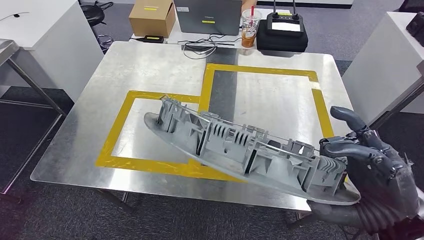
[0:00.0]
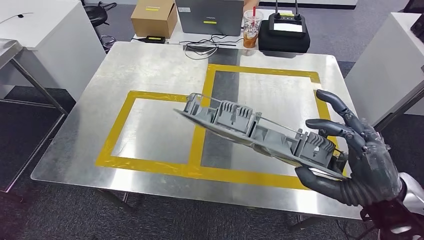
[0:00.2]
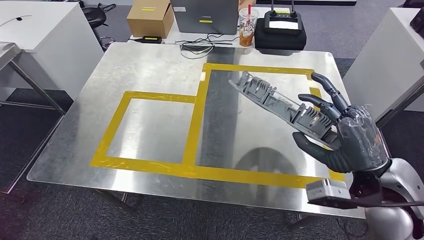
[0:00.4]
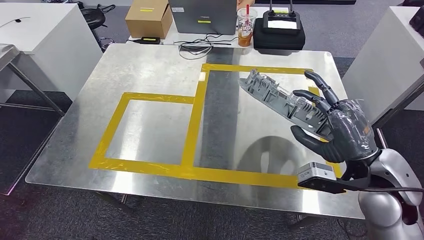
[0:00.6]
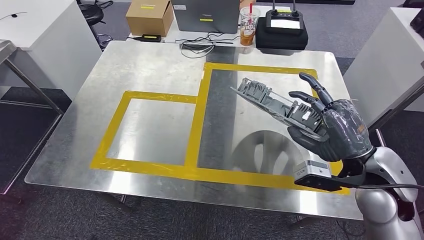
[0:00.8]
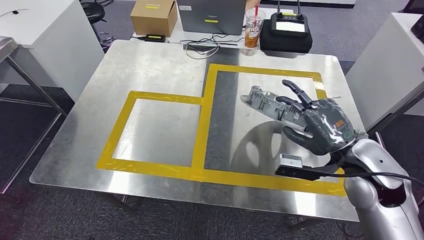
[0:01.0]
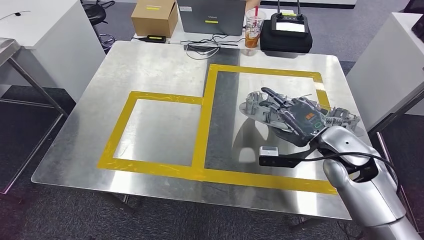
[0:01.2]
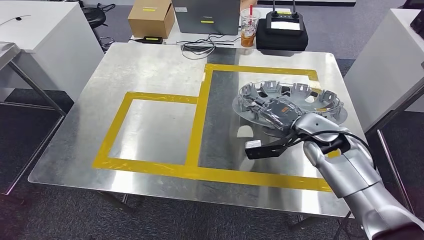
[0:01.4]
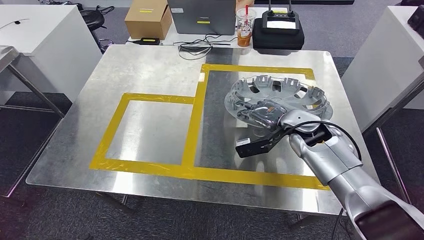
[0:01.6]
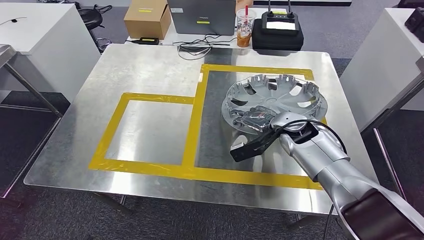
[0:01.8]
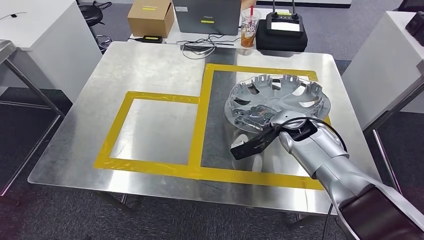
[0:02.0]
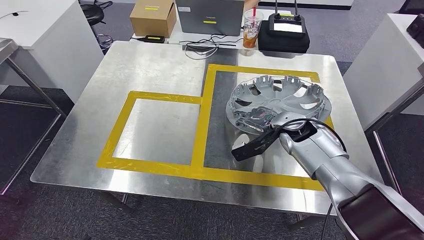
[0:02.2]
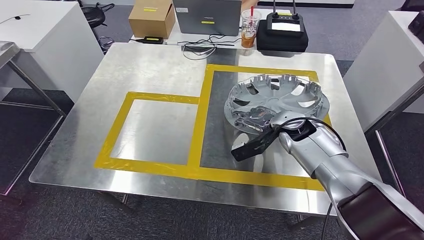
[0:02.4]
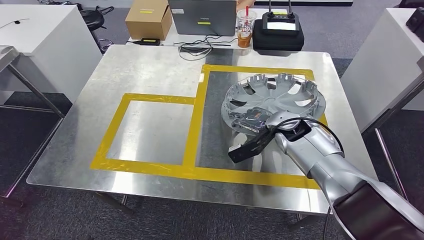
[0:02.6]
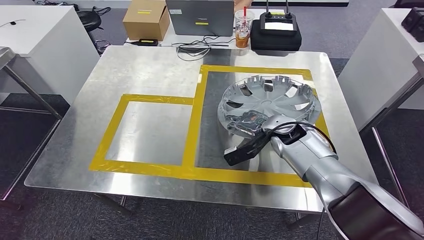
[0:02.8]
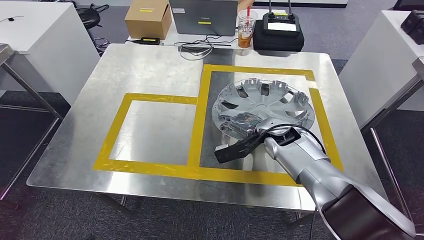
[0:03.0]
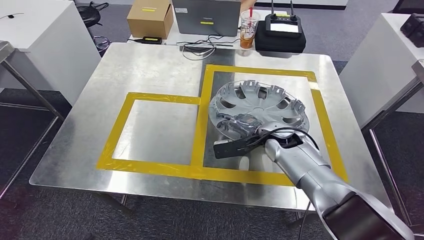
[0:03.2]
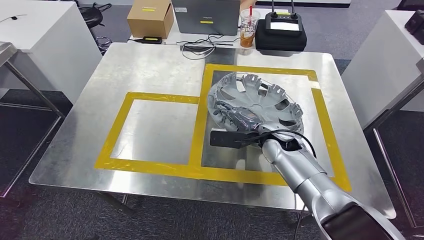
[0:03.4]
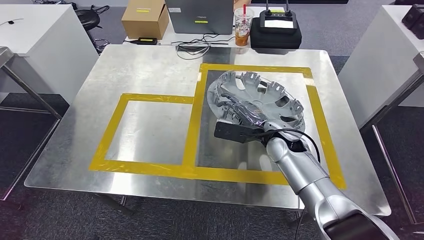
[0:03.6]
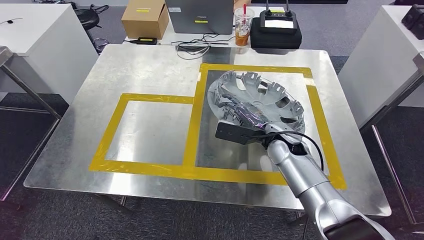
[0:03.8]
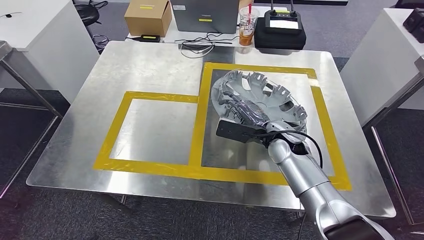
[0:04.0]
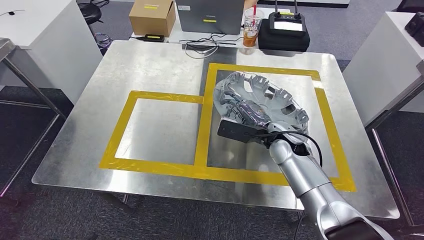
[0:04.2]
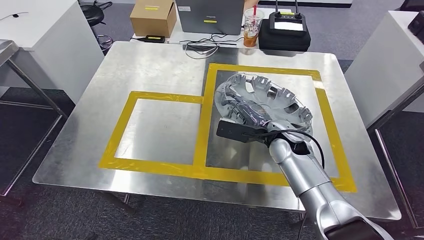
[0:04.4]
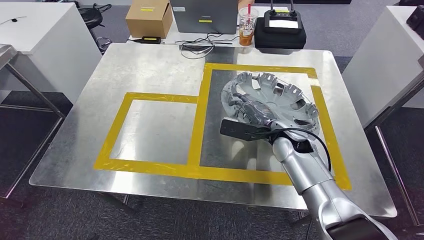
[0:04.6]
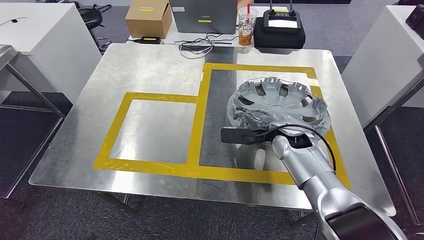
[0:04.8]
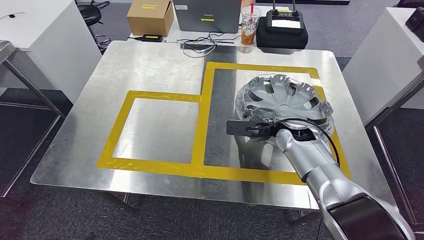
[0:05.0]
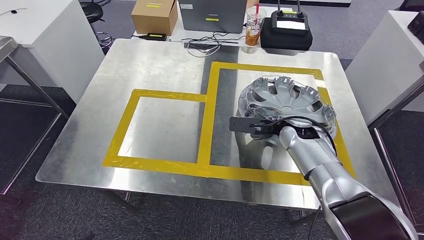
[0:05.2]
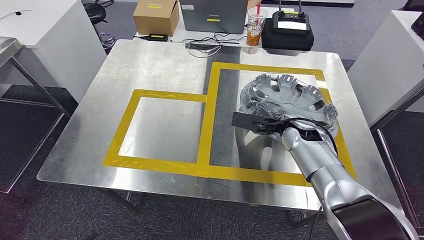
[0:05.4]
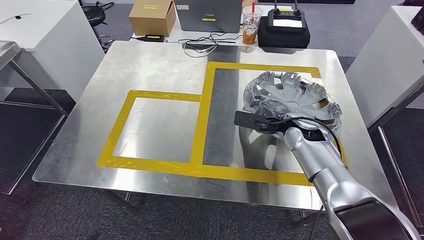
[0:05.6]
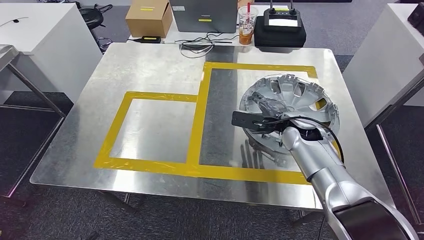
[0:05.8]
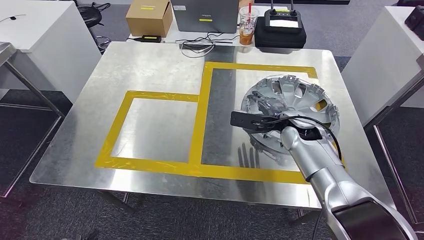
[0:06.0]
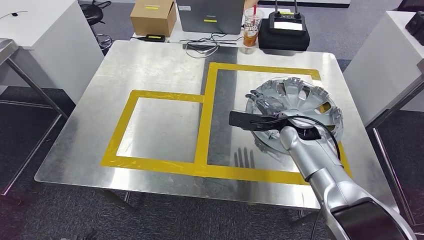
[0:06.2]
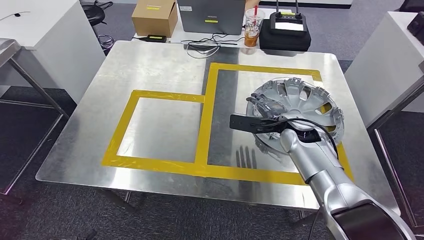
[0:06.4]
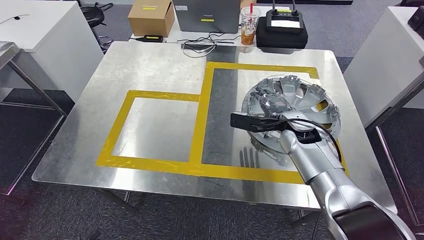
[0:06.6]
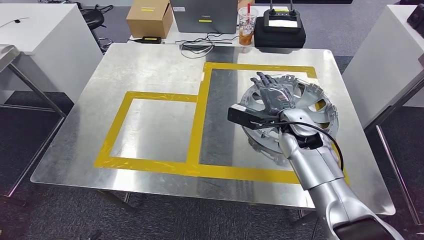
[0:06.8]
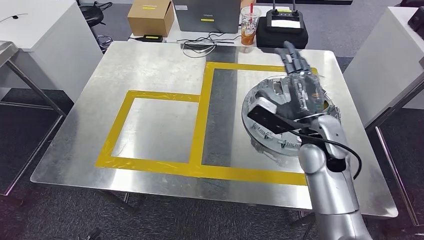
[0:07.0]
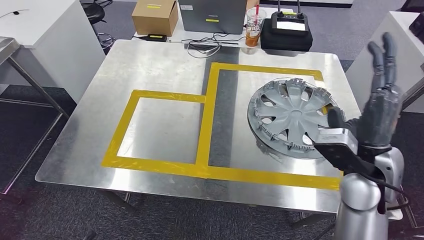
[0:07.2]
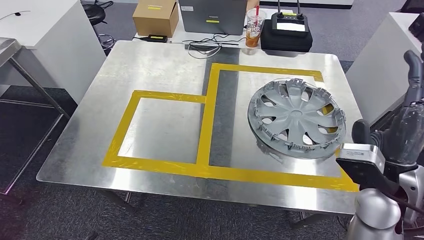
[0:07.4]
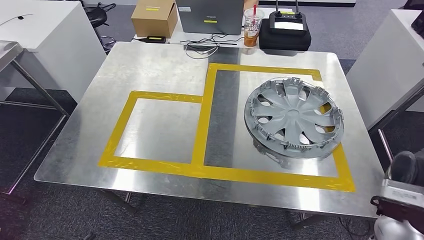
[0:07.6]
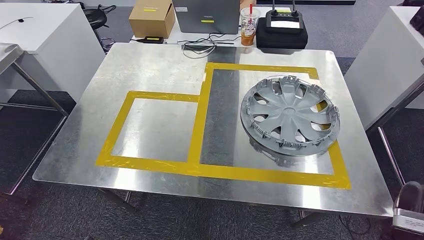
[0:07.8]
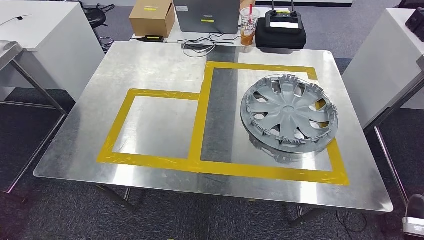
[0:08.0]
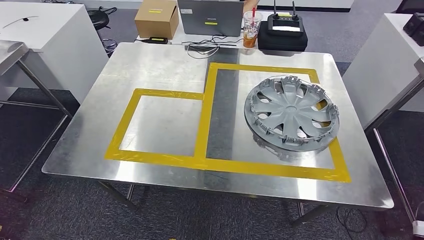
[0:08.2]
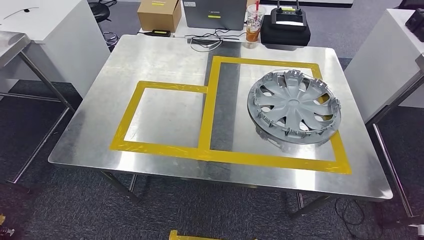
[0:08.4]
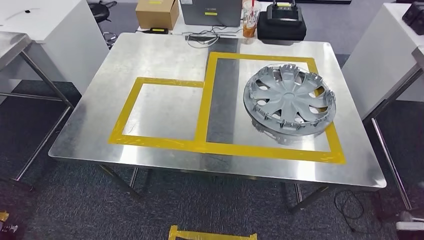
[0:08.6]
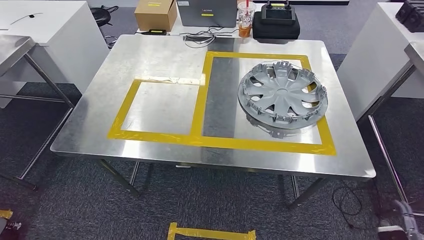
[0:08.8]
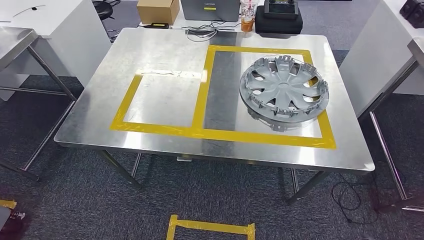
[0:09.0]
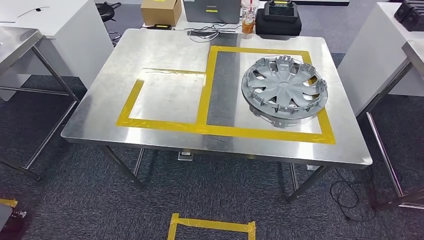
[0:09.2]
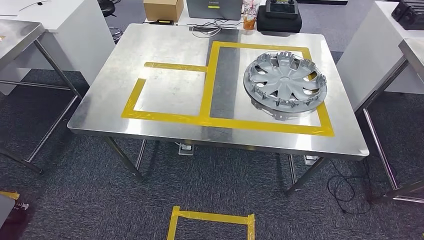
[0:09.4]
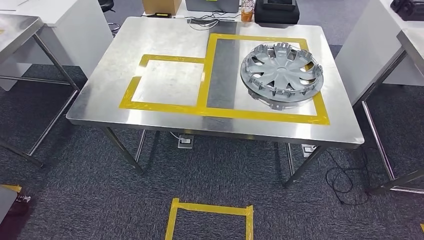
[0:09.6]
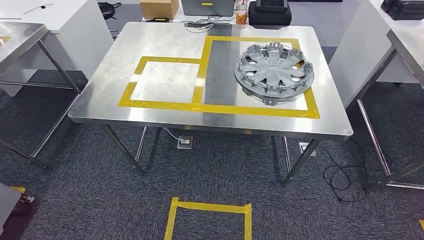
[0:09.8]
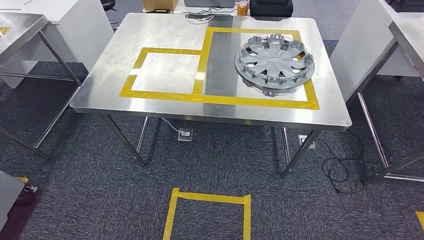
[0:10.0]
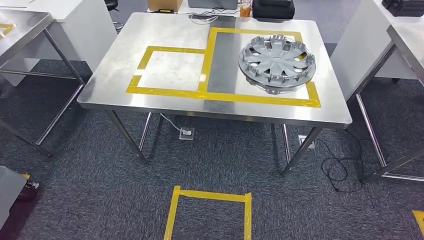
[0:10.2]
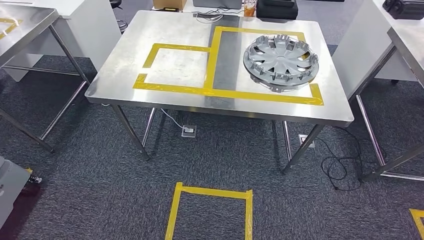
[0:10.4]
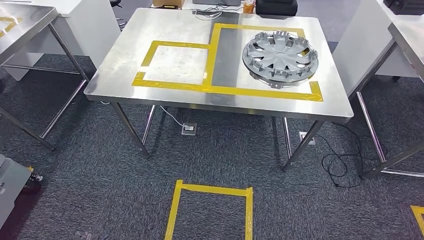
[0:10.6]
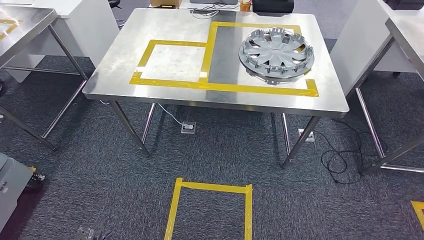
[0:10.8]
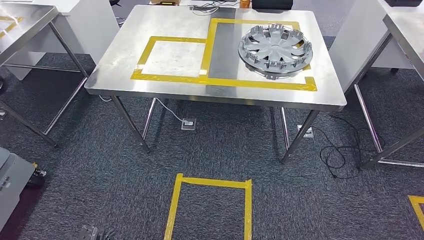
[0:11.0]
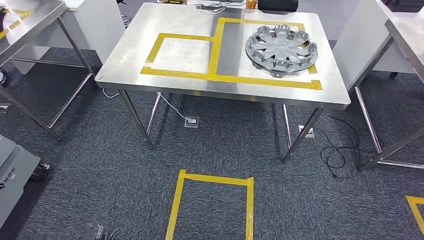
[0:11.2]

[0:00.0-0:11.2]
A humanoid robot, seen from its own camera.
Step, 0:00.0 to 0:02.8: Insert the small component into the corresponding slot on the workbench.

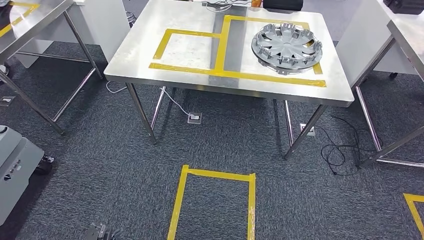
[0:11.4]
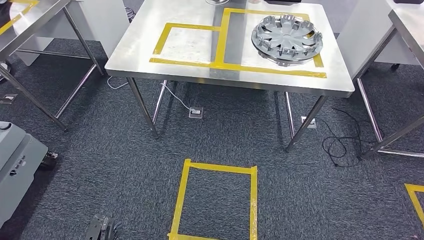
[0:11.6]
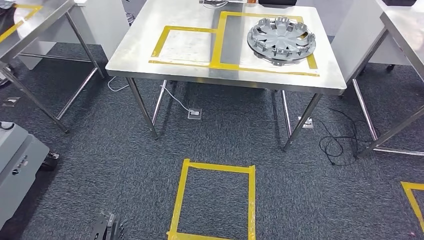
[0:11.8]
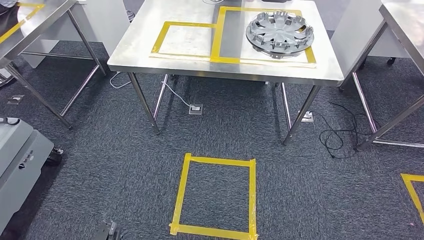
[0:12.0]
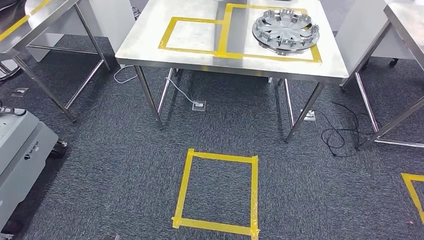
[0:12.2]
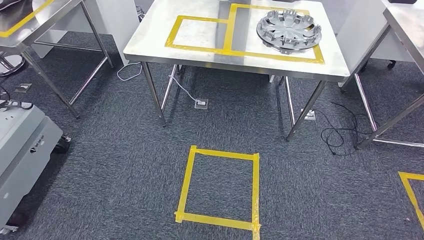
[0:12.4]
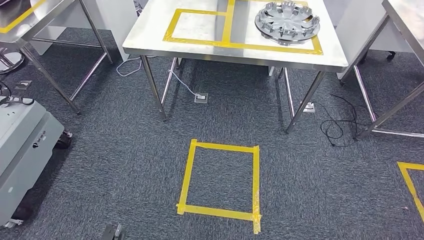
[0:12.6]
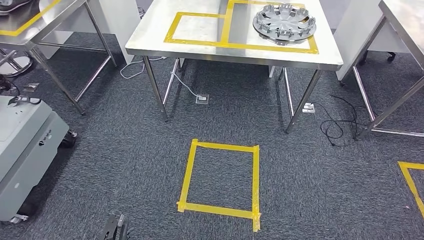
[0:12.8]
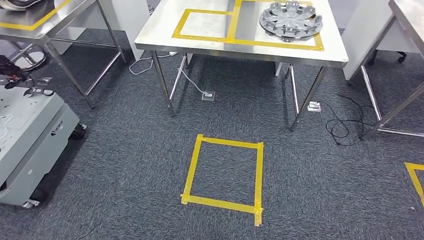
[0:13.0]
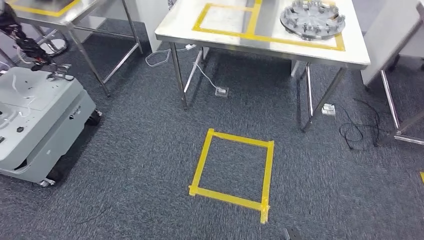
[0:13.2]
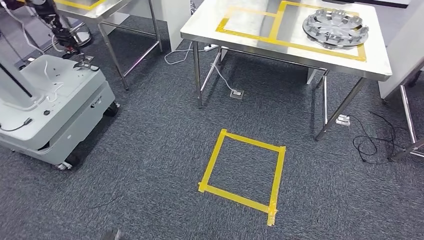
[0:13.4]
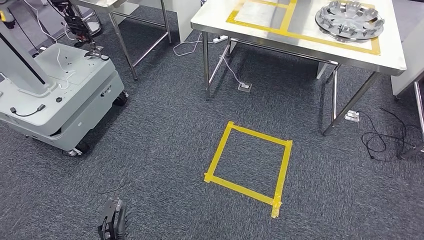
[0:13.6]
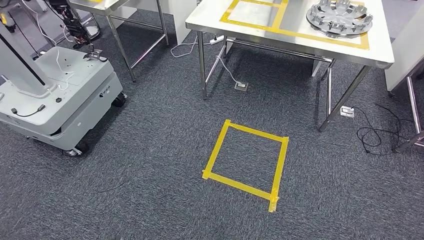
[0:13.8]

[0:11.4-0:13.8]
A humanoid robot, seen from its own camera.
Step, 0:11.4 to 0:13.8: Return to the initial position at the workbench.
